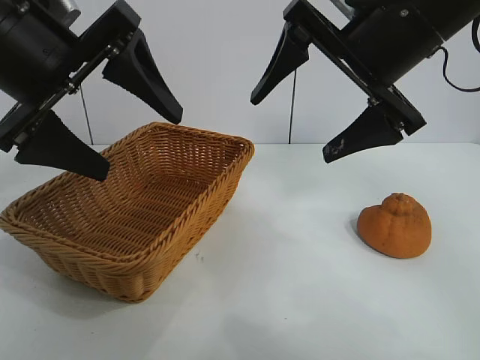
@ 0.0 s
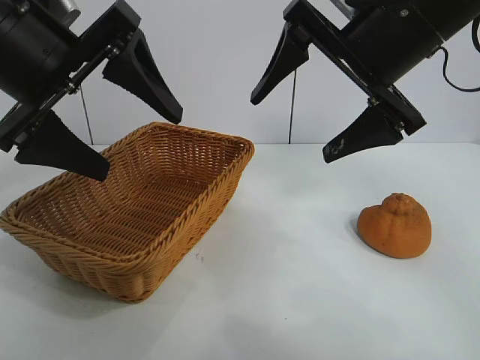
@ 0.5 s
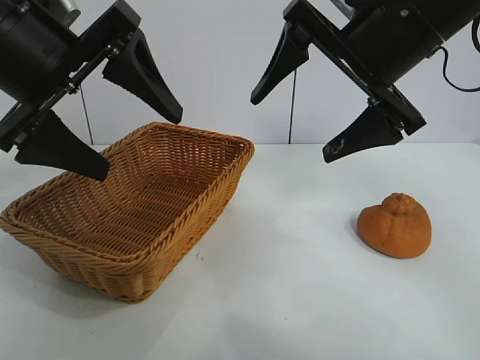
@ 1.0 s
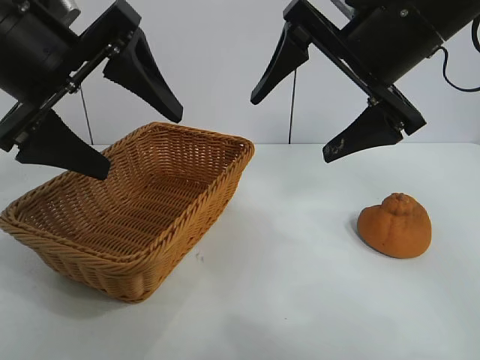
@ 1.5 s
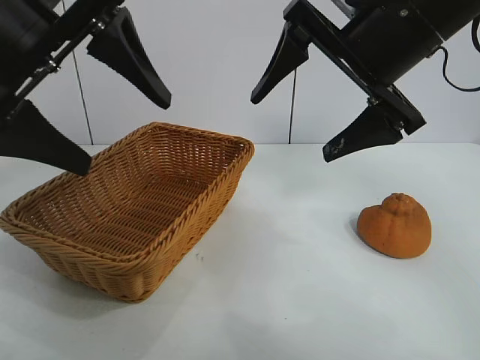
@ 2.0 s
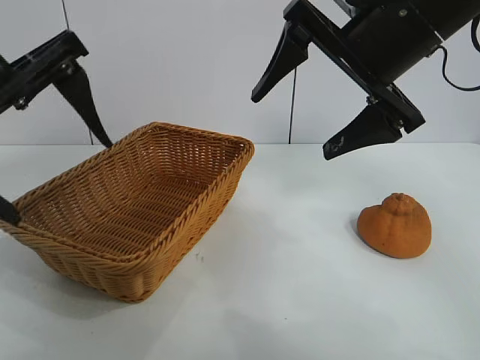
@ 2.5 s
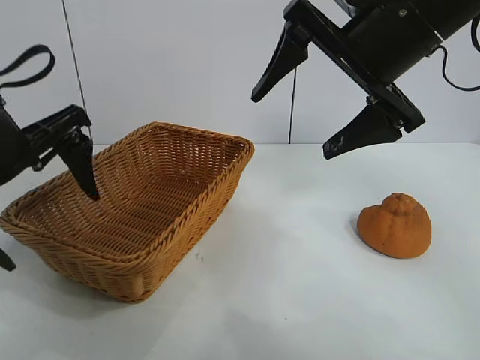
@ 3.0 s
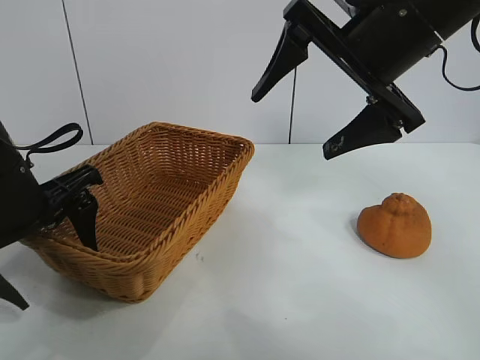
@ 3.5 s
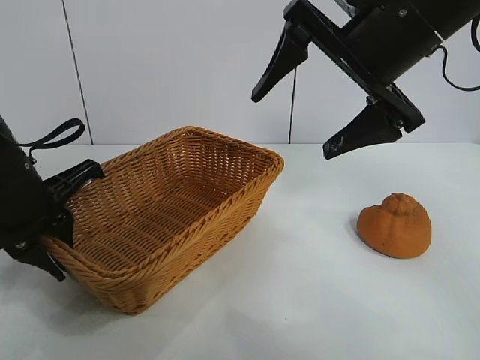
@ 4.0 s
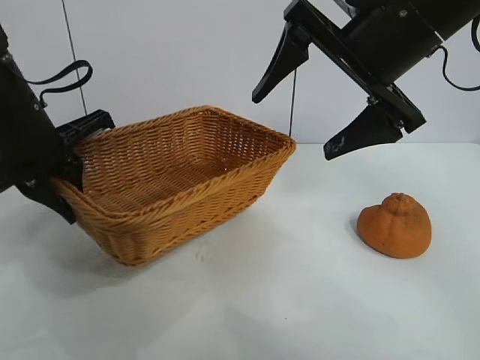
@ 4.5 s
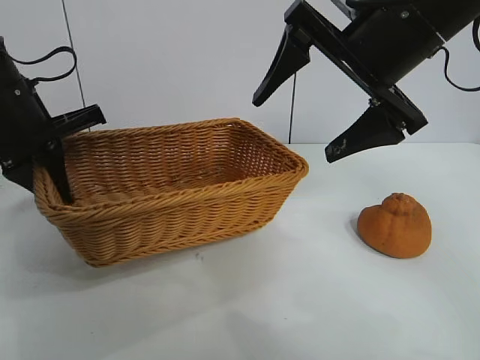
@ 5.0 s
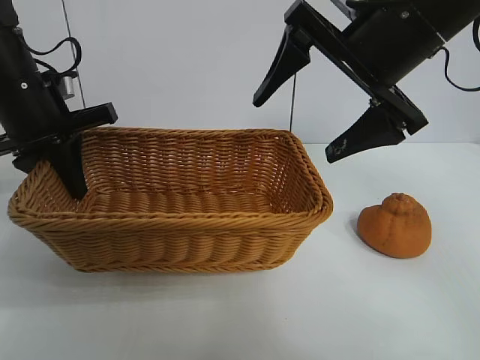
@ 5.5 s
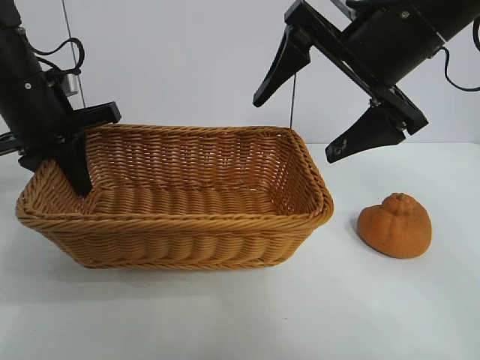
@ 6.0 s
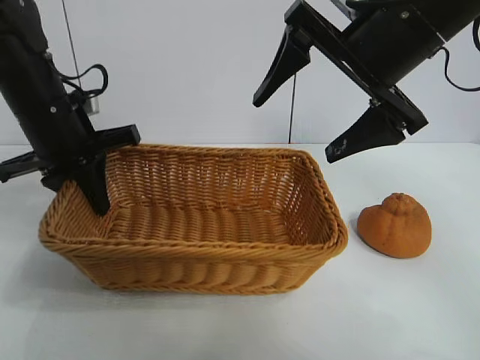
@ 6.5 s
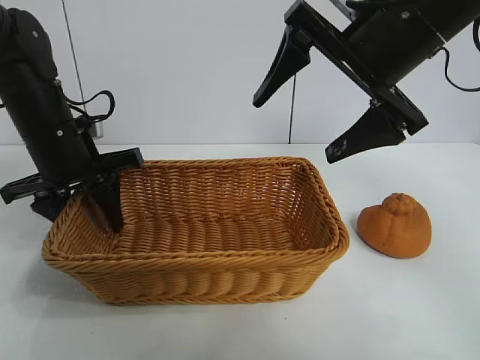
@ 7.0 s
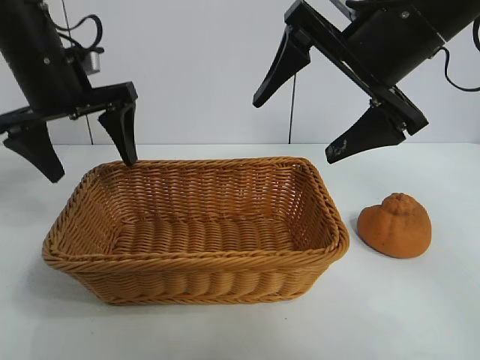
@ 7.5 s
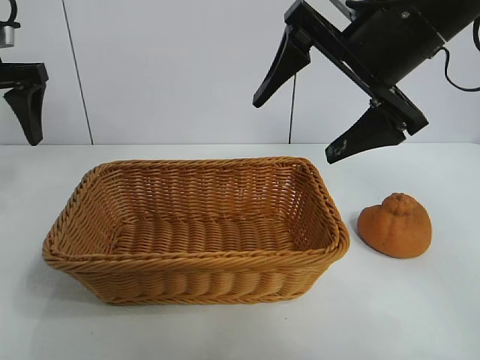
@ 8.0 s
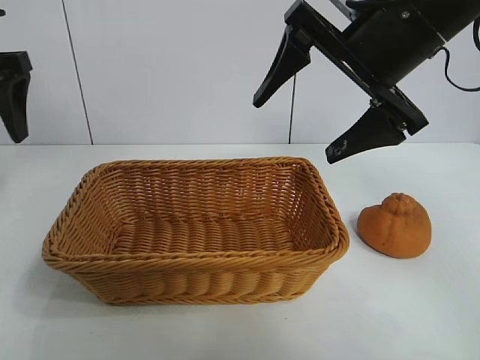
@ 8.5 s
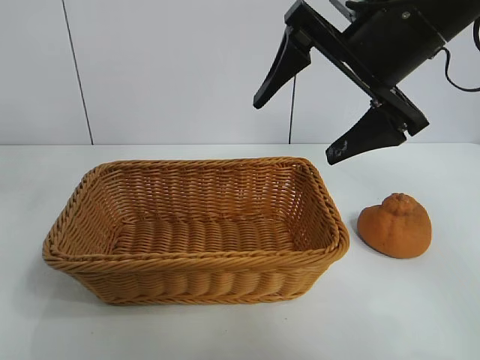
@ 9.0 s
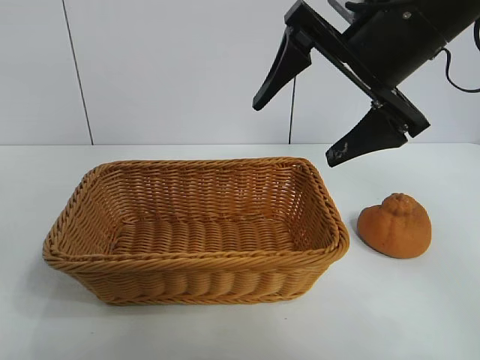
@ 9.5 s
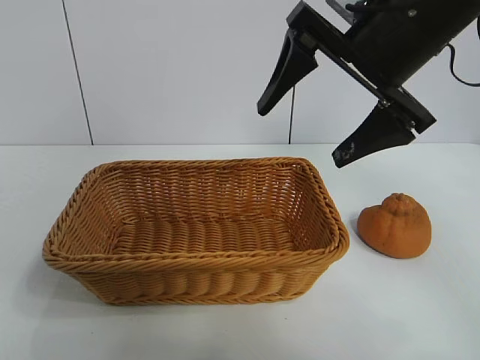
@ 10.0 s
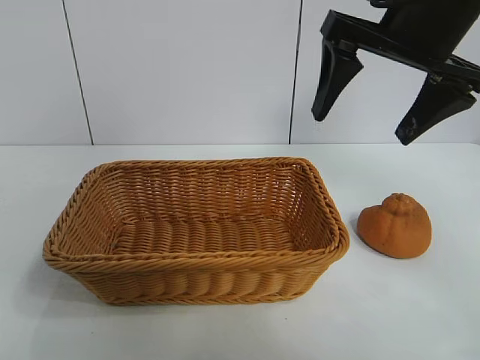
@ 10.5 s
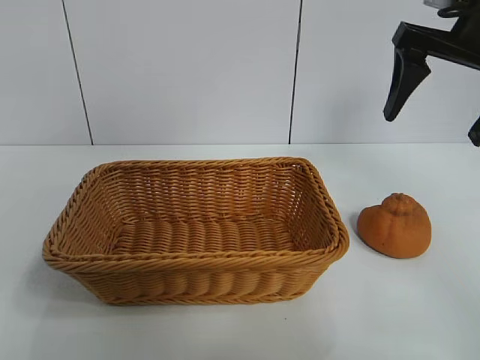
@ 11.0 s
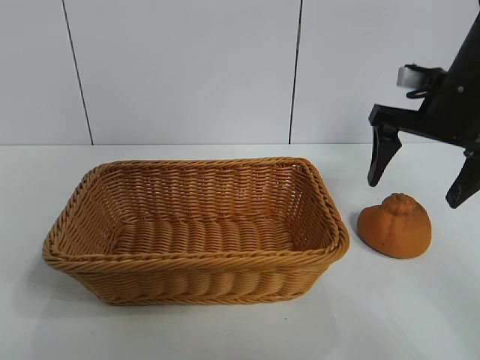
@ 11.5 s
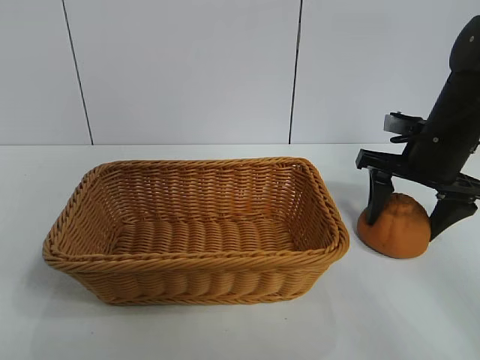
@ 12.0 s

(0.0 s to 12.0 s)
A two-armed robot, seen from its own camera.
Task of the whole recording: pick up the orange and put it into the basket.
Step, 2.0 s - 3.5 s: Grasp the basket with left gripper.
Step, 4.5 s - 7.0 s: Place the basket in the center of view with left gripper.

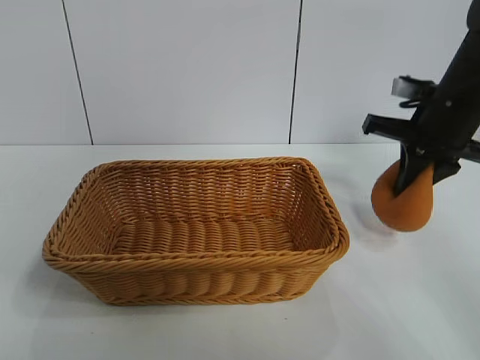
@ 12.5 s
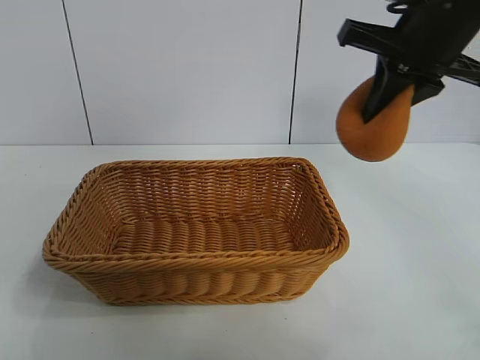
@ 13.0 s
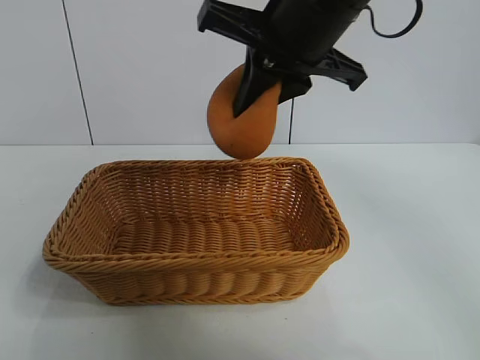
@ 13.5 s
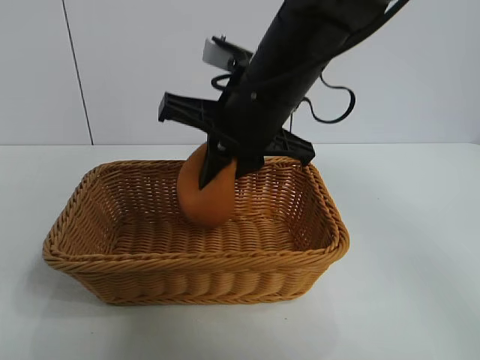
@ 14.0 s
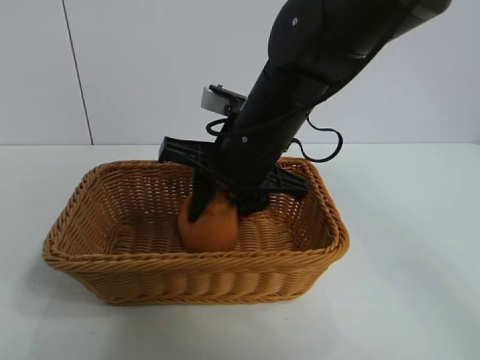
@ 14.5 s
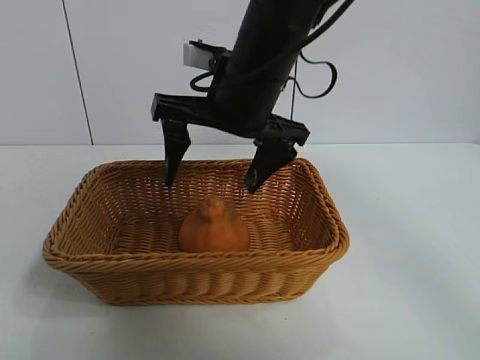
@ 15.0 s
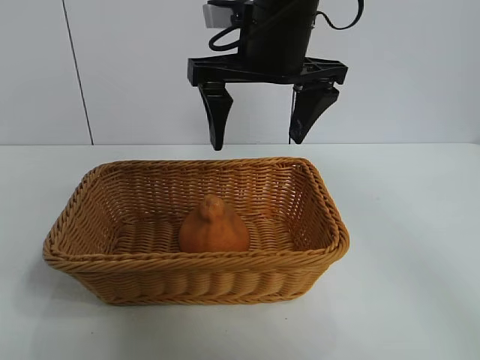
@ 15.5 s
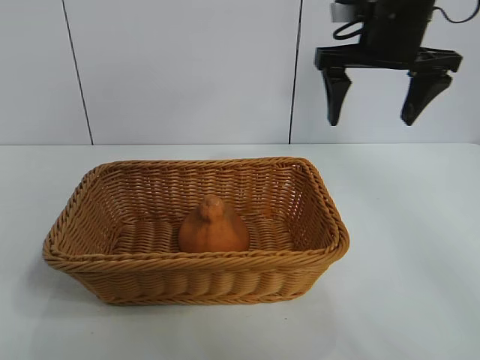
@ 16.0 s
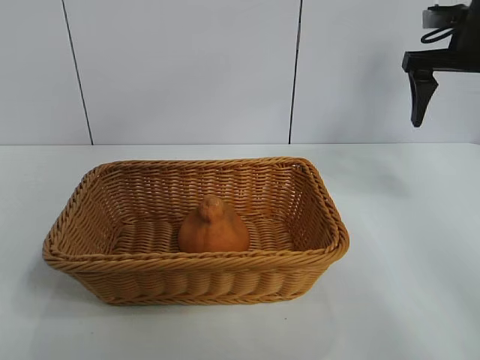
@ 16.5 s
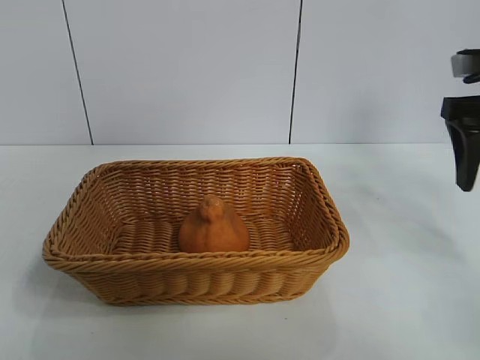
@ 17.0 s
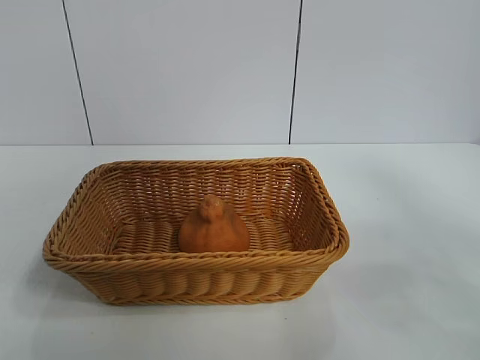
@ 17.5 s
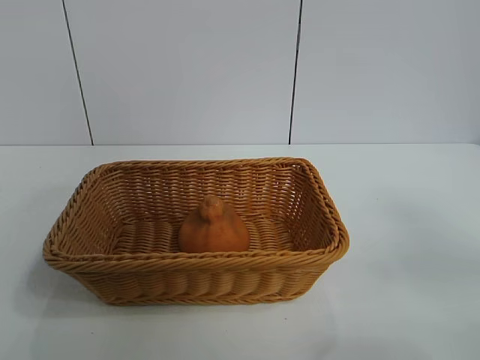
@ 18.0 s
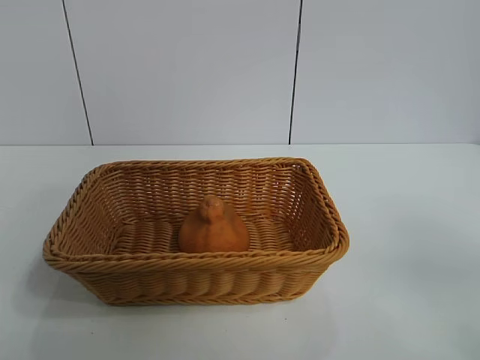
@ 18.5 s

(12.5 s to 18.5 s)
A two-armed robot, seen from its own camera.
Task of the whole recording: pick up the orange and put it into the basket.
Step, 13.0 s - 14.5 s: Place the orange in the basket with right gripper.
